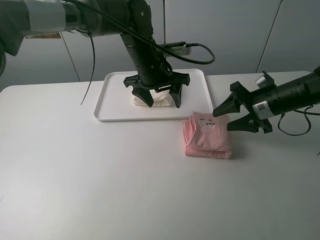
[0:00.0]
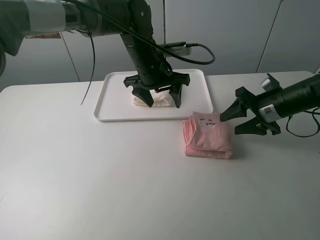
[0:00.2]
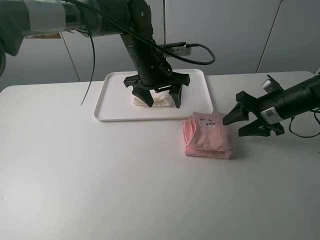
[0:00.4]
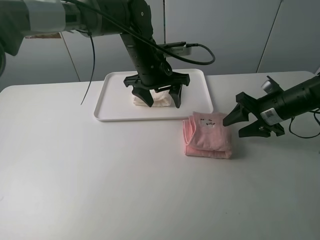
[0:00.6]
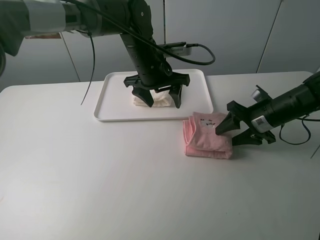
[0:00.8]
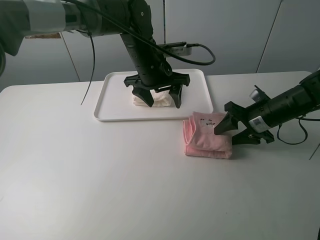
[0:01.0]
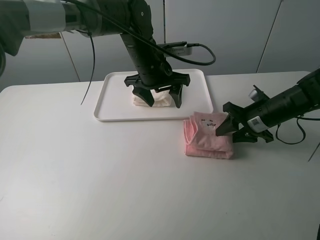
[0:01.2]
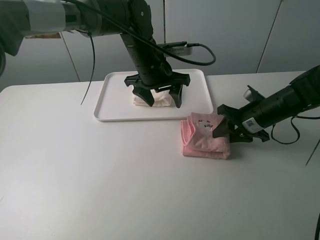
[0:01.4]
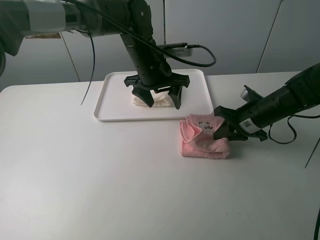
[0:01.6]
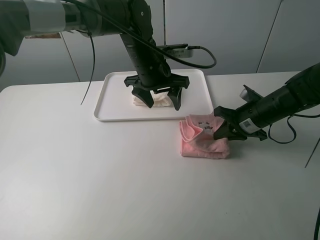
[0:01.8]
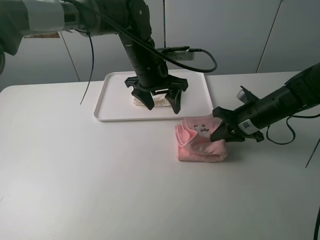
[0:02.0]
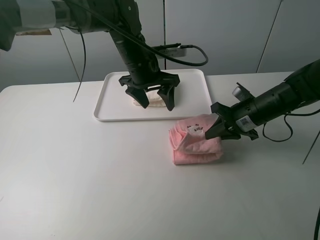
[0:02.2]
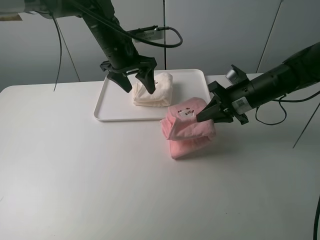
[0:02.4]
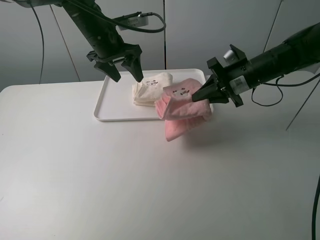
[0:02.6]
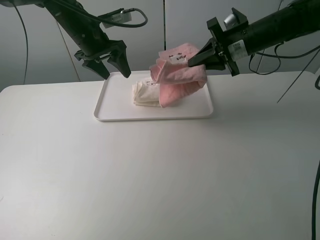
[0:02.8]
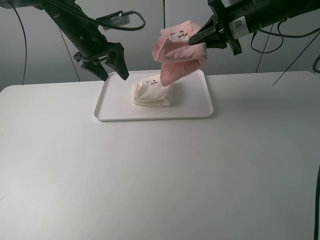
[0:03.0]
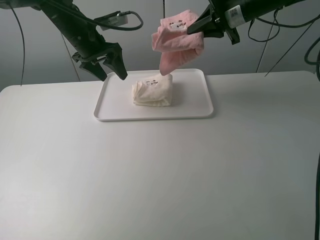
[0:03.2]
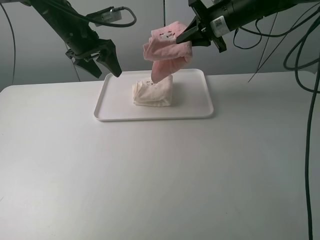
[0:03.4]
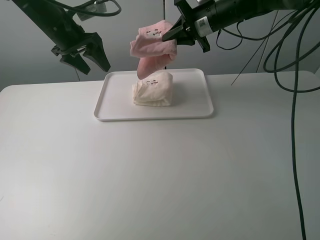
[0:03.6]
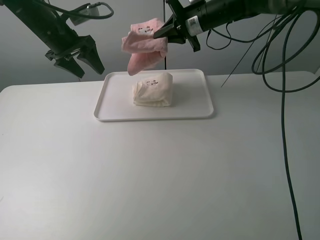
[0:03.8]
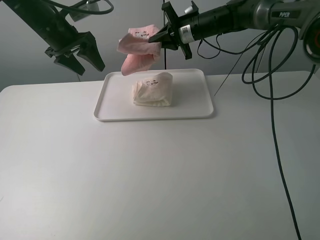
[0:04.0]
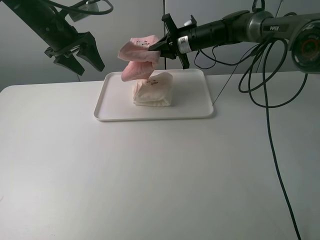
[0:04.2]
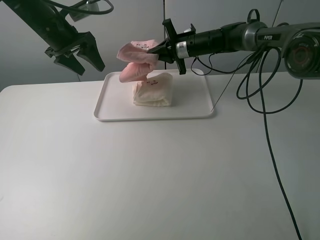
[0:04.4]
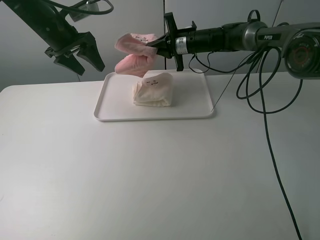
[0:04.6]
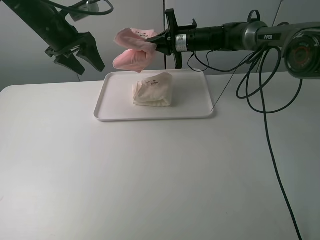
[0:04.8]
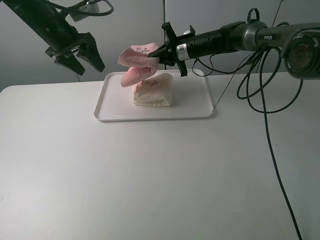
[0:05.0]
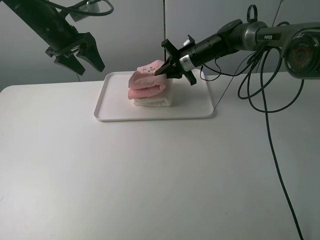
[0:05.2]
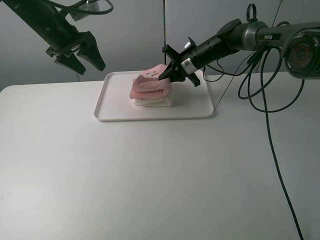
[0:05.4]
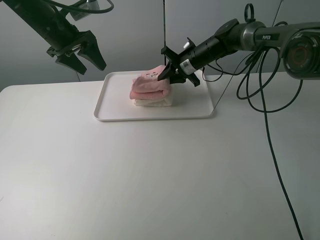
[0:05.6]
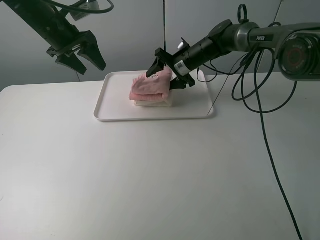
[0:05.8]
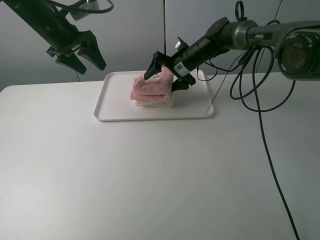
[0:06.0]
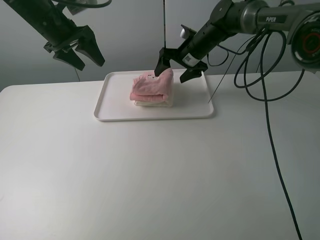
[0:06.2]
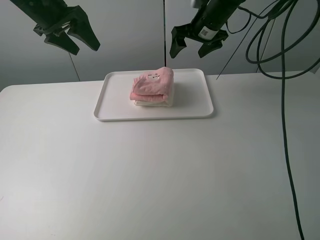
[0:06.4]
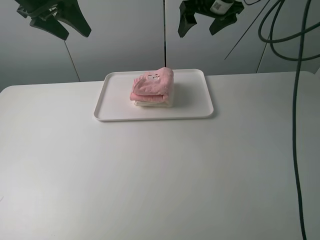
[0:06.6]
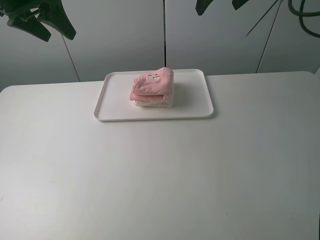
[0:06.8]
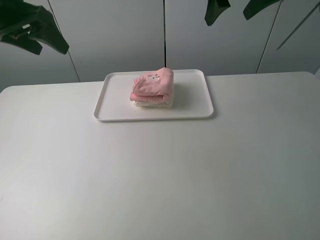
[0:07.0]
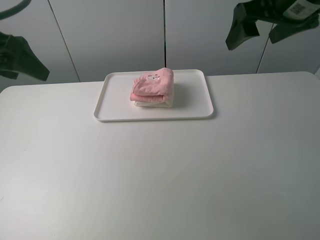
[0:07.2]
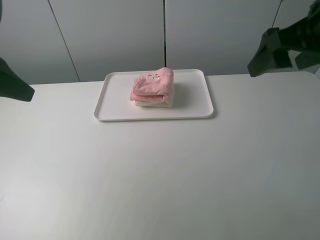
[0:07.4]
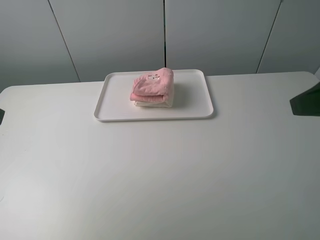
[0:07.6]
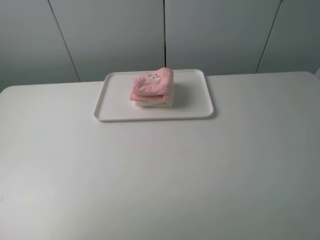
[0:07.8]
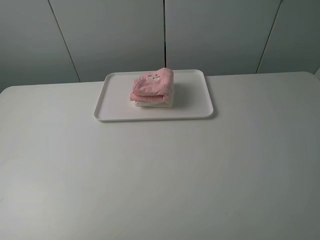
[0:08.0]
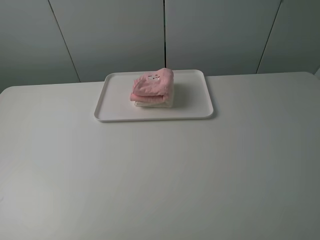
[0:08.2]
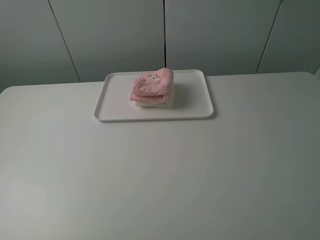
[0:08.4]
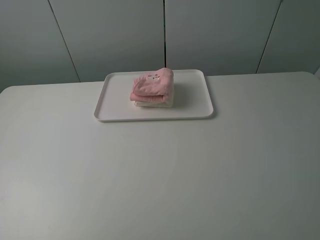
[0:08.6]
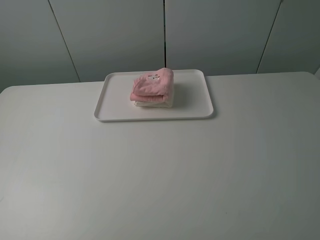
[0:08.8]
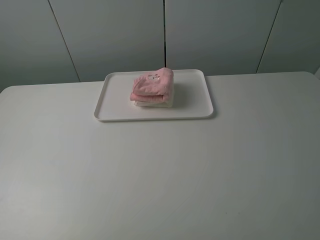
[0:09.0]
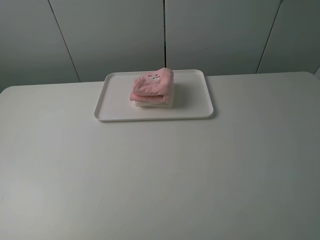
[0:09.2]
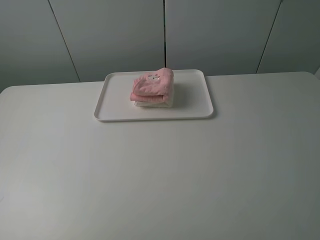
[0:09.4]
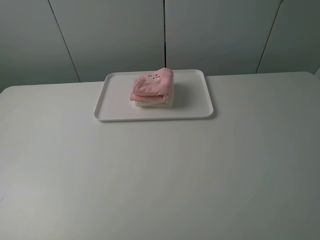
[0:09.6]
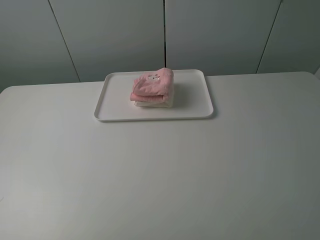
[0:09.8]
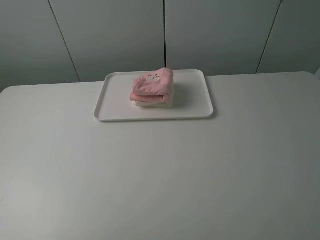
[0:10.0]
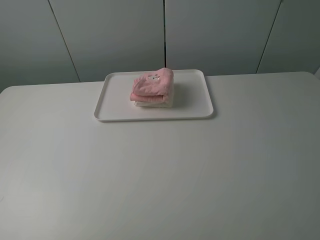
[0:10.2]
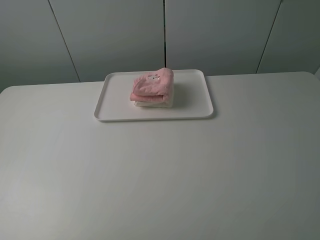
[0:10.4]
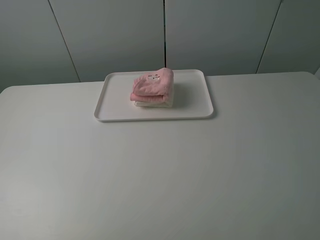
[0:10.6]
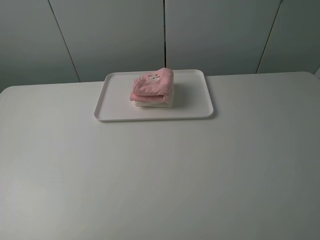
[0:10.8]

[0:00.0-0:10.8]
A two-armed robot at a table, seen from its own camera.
Task of the whole recording: fold one of the towels by two grippers and place it on the tray,then fold another towel by two grippers and place it on the folded towel.
Step, 0:00.0 to 0:01.8: Grasp the pink towel with the right gripper.
Step, 0:02.0 to 0:06.2: Place the pink towel on the white towel with the right gripper.
0:00.0 to 0:01.6: The right gripper closes.
0:01.6 to 0:03.0: The right gripper goes approximately 20 cm upward and forward. Meanwhile the left gripper shifts roughly 15 cm to the left.
0:03.0 to 0:04.6: The left gripper is displaced to the left by roughly 5 cm. Meanwhile the right gripper travels downward, to the left and forward by about 15 cm.
0:04.6 to 0:06.2: The right gripper opens up.
0:06.2 to 0:07.8: Both grippers move backward, some 40 cm.
0:07.8 to 0:09.2: Both grippers move backward, roughly 5 cm.

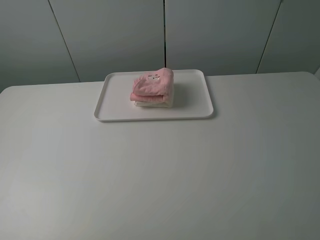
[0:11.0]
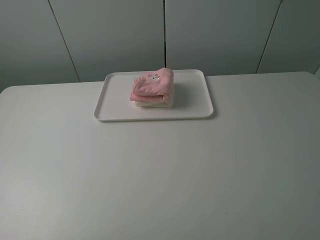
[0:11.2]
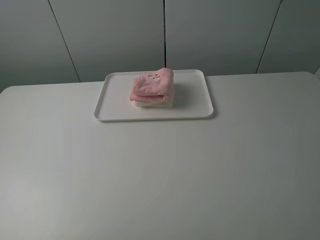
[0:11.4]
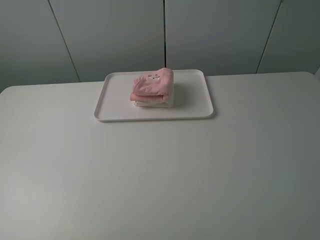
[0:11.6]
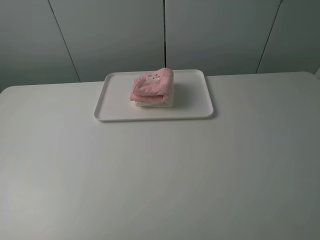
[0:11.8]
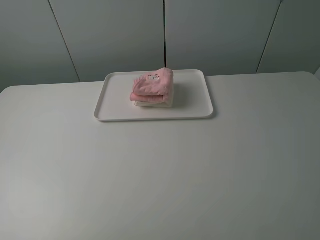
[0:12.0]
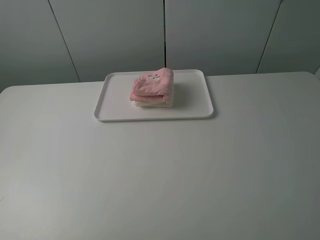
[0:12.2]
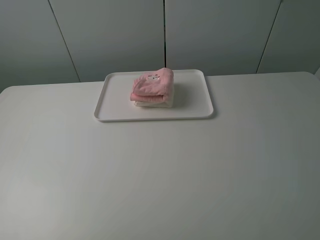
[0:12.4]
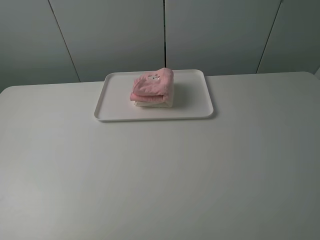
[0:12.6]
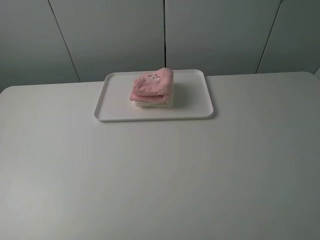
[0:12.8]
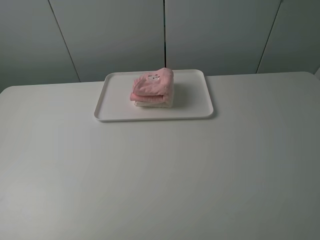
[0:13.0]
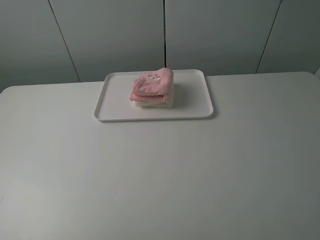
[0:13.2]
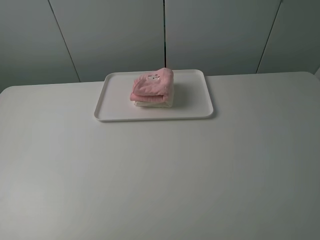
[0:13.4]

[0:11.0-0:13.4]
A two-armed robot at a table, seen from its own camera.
Task of the whole recording: fold one of the towels by two grippers and place it on the tray,then fold another towel by two grippers and place it on the folded towel.
0:11.0 to 0:13.4: Both grippers stay about where they are.
